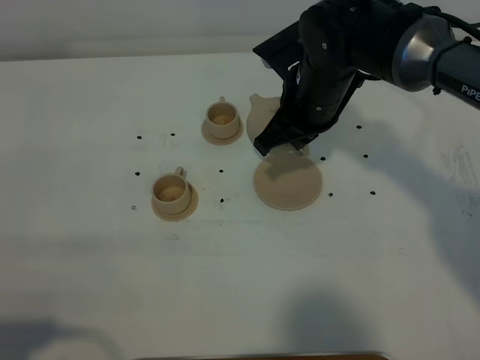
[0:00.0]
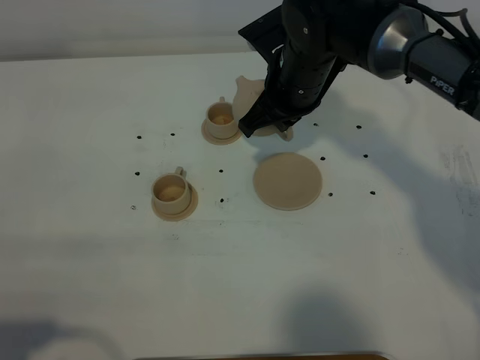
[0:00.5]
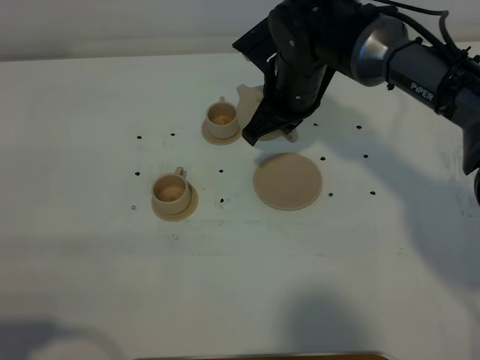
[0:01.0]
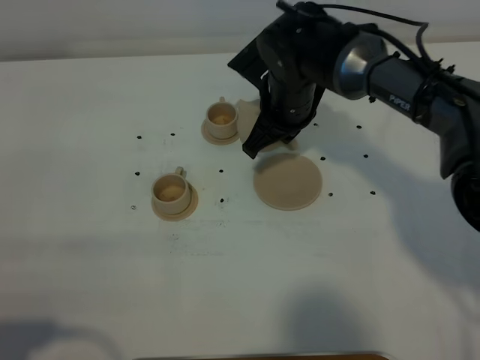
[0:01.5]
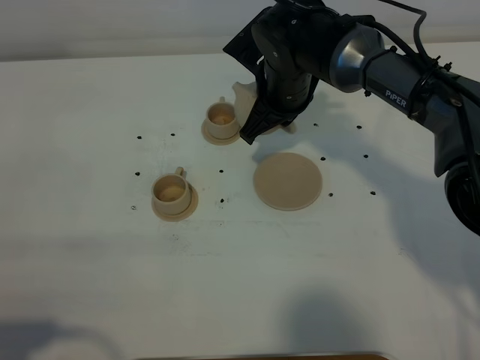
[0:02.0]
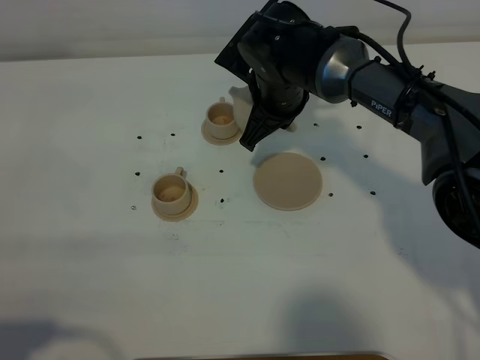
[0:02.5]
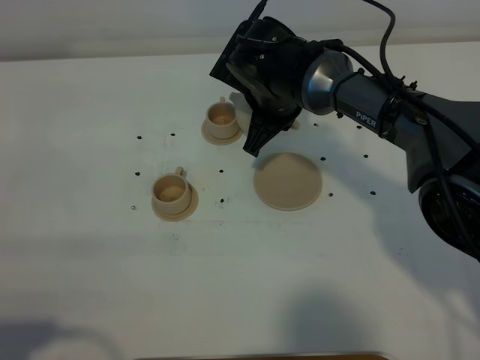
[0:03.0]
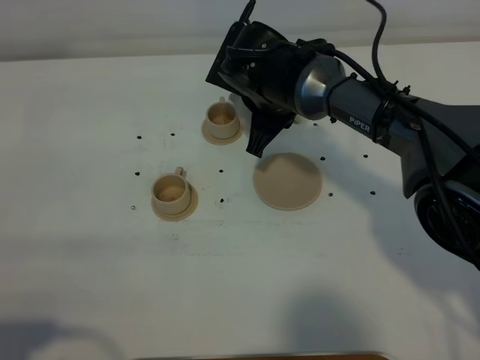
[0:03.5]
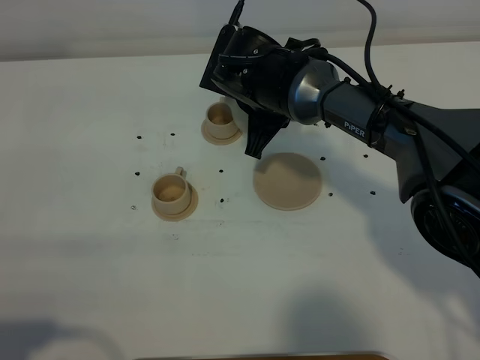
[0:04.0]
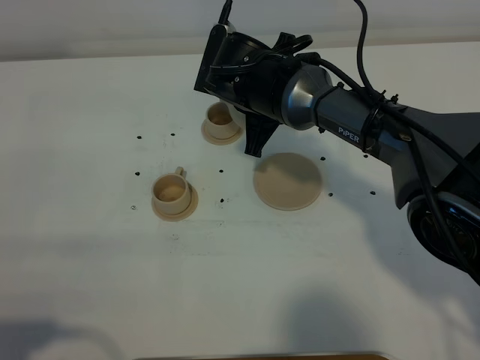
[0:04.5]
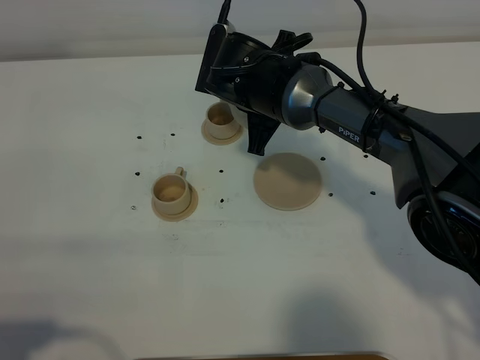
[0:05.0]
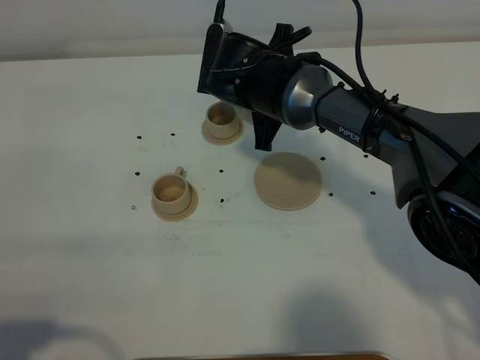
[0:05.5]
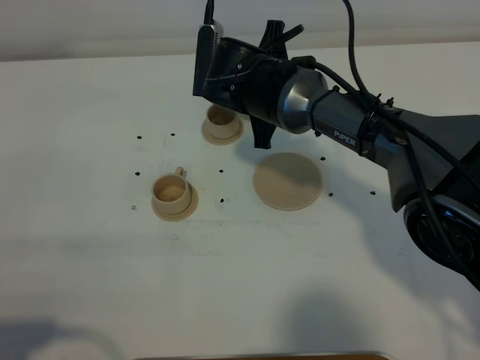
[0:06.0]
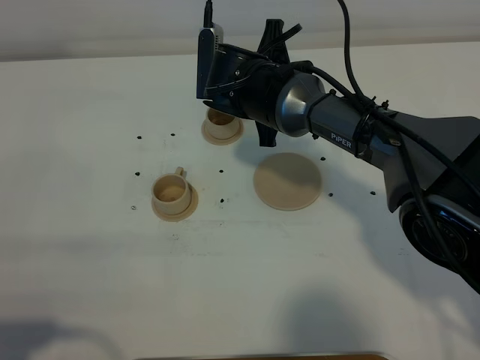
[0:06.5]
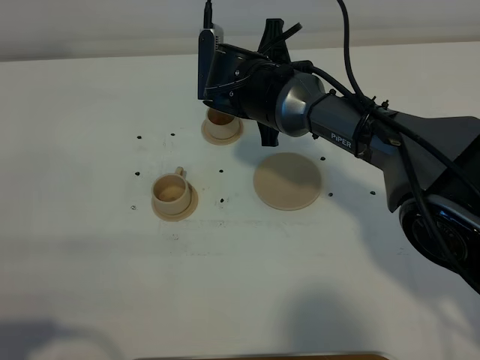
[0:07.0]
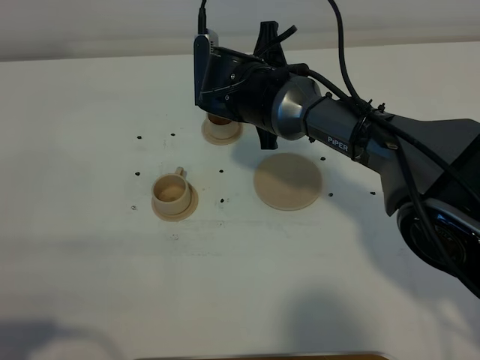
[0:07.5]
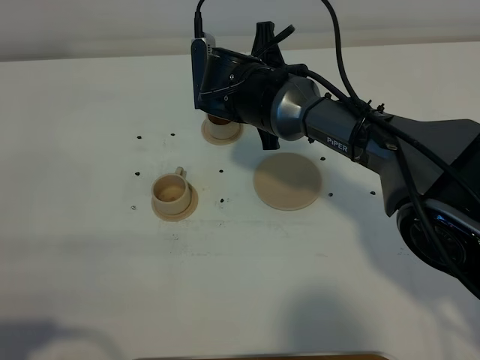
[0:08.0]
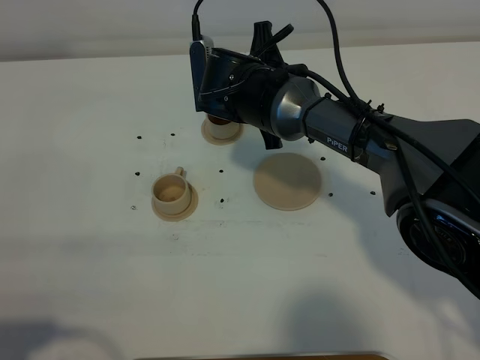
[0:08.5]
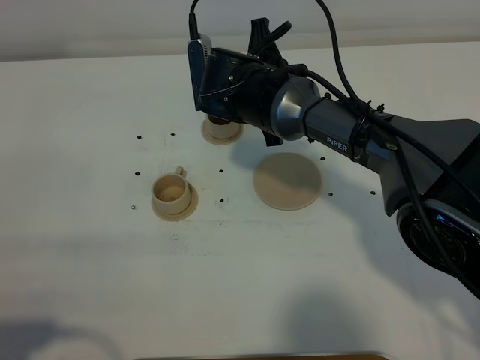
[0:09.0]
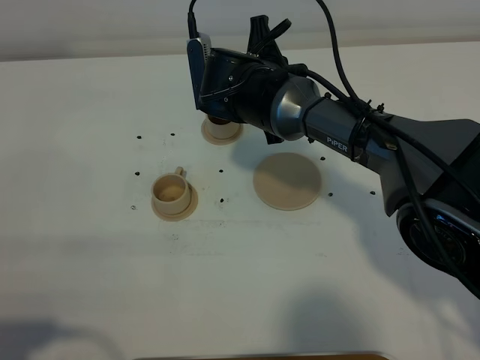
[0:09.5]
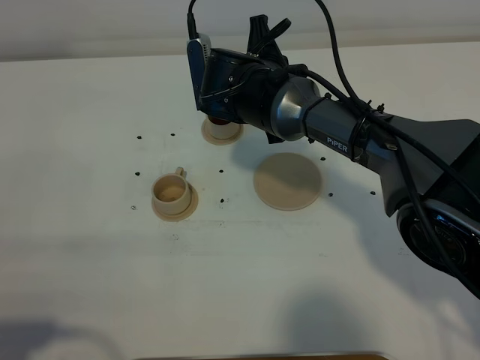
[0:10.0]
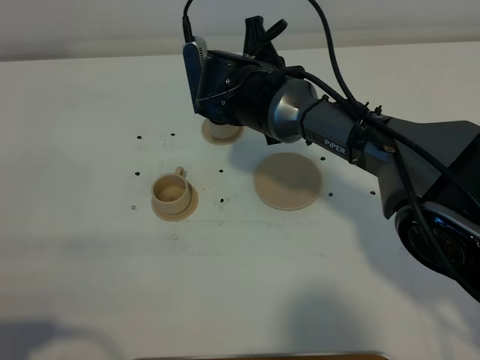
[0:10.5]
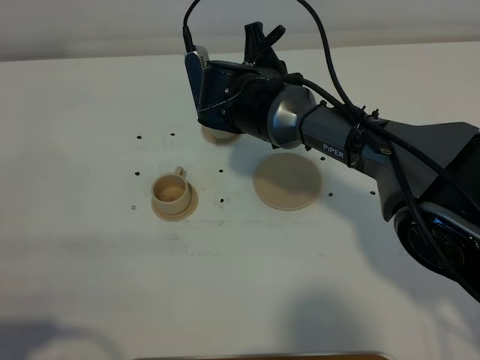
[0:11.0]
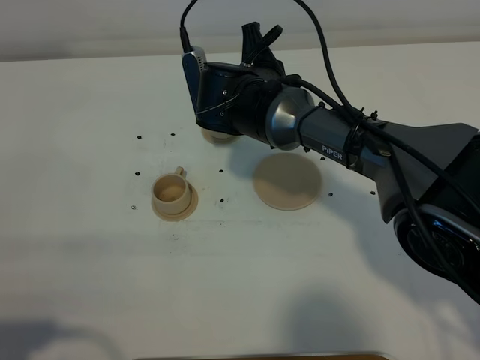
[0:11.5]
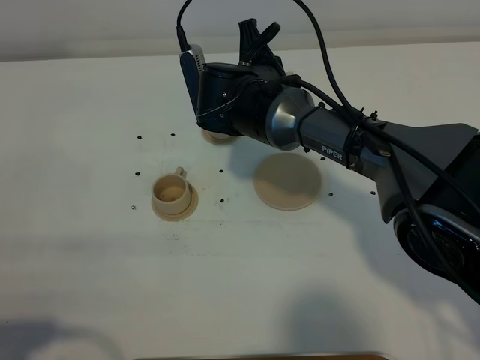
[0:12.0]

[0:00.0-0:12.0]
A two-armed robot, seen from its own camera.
Task of the whole recording: grasp the brown teapot and pour the tea into the two brown teacups one by one, put the brown teapot back in its original place.
0:00.0 to 0:02.0: The right gripper moves about 5 cm.
0:04.0 to 0:06.0: The grippers stay close to where they were, moving slightly.
0:06.0 to 0:10.0: The grippers stay close to where they were, moving slightly.
0:10.0 to 0:12.0: The grippers make only small movements.

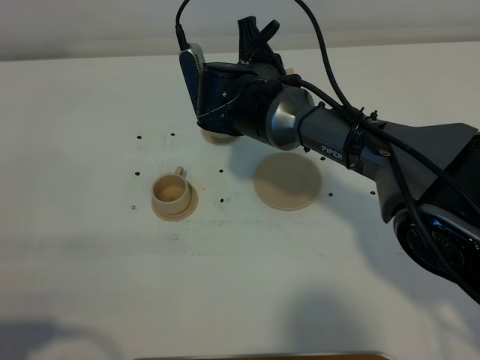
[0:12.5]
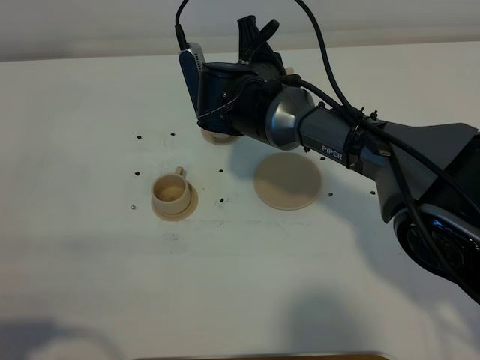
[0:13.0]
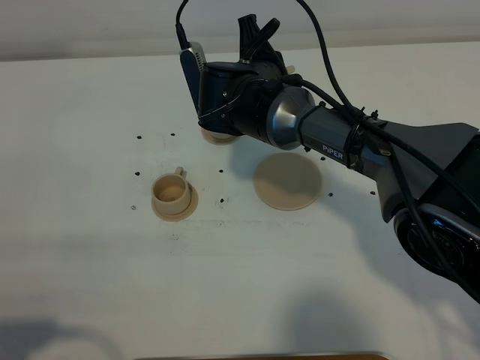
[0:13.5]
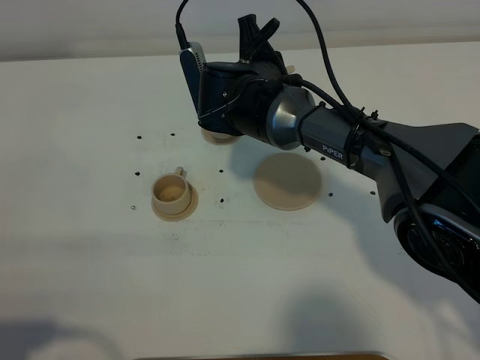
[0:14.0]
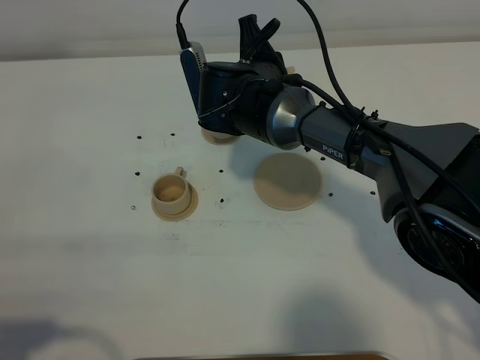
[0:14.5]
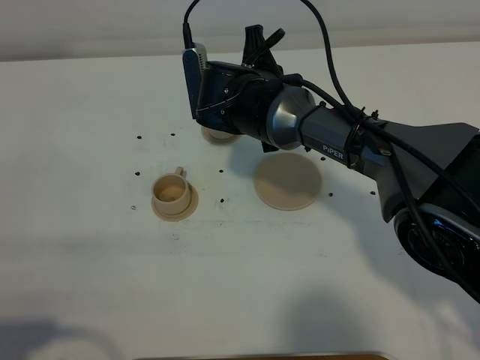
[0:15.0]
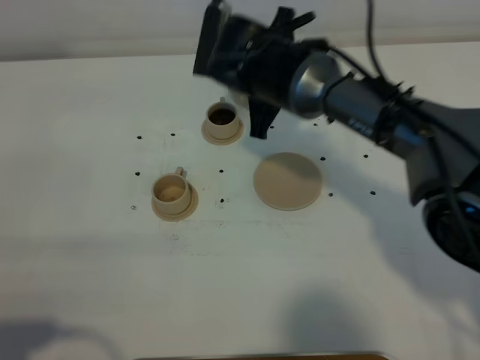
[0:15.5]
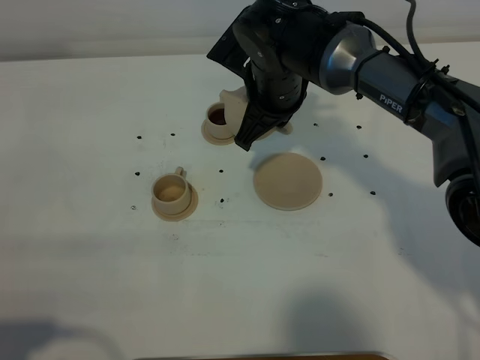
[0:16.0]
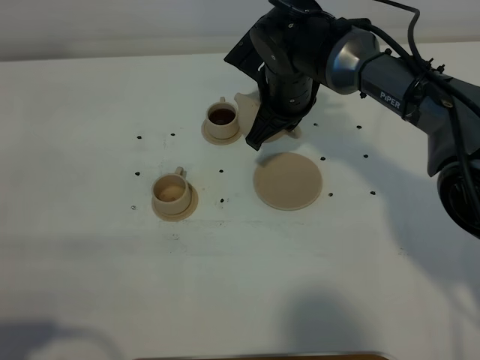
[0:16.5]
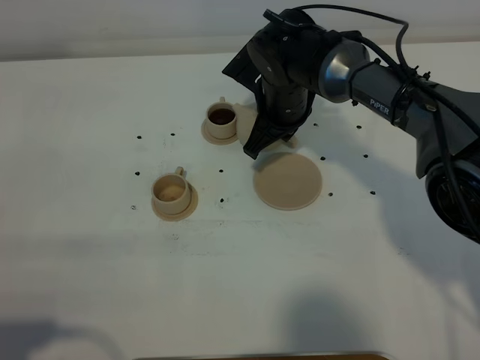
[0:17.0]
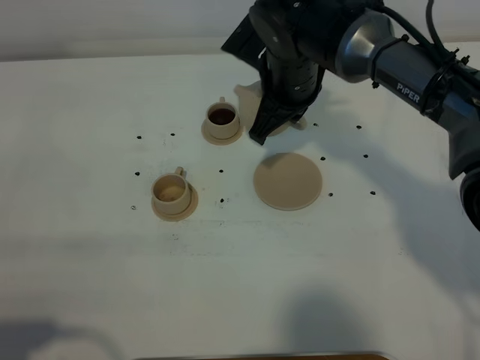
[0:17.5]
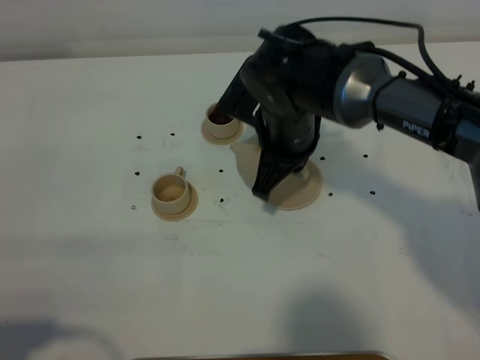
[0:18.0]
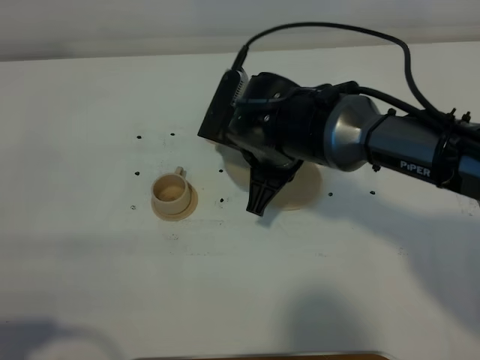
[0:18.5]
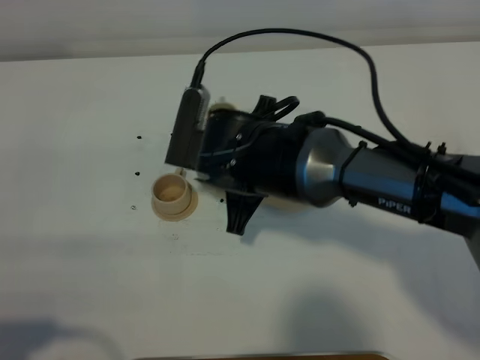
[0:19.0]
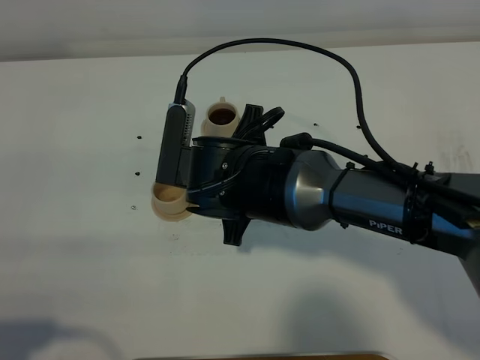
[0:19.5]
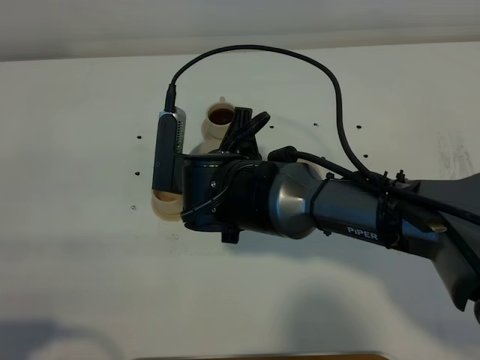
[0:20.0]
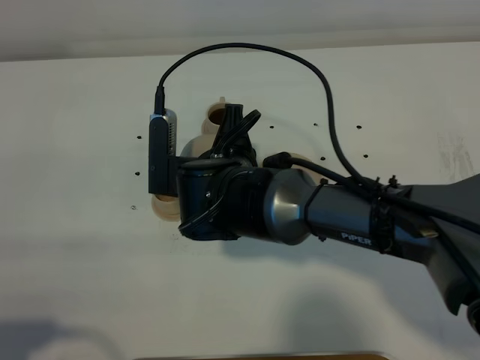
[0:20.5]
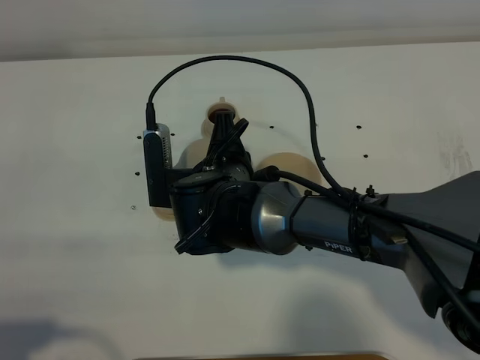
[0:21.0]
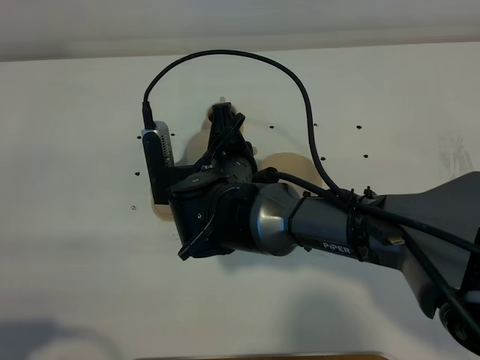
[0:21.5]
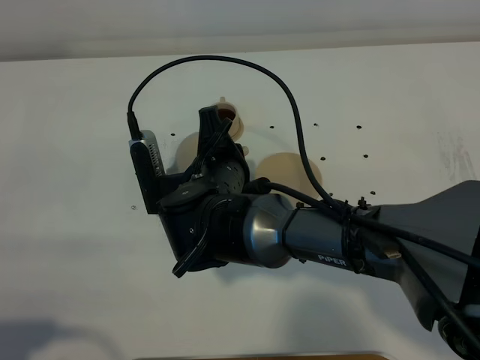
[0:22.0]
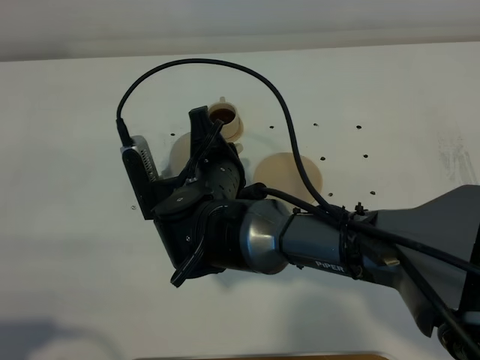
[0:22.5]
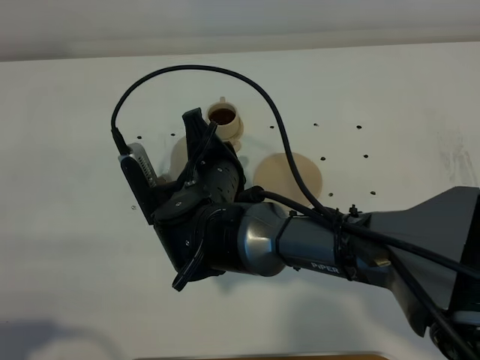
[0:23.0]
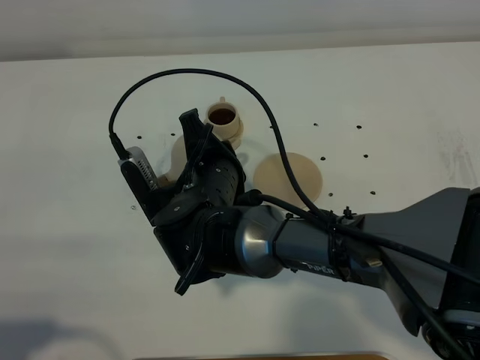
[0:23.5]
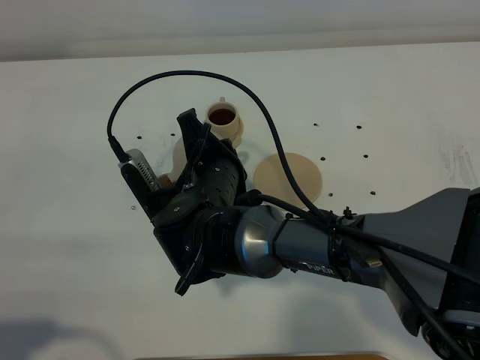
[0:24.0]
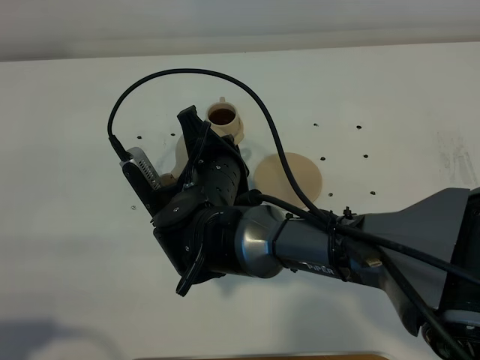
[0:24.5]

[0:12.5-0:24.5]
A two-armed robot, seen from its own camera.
Task of the whole recording: grasp the brown teapot and pour the tea into the two brown teacups one by one, put the brown teapot back in its original place.
Step, 0:12.5 to 0:15.0: Pour tea into the teacup with the right gripper.
0:12.5 to 0:14.5: The two grippers keep their place.
0:16.5 to 0:18.5: The right gripper travels backward by some 10 cm.
0:18.5 to 0:20.5: The right gripper shifts about 5 cm to the left.
0:22.5 to 0:24.5: The grippers make only small movements.

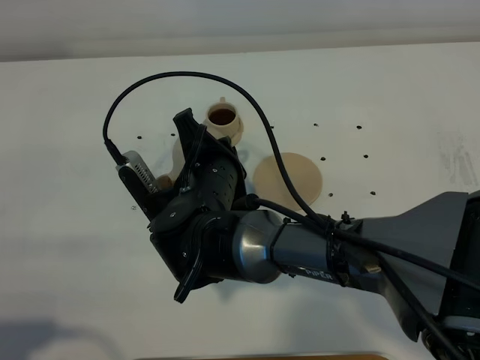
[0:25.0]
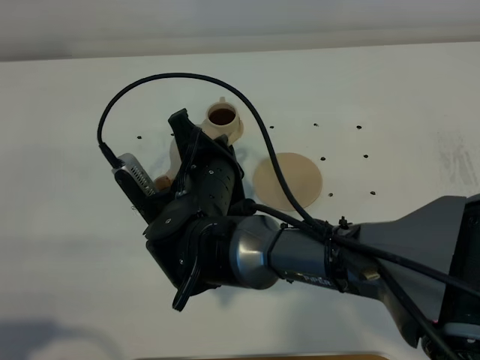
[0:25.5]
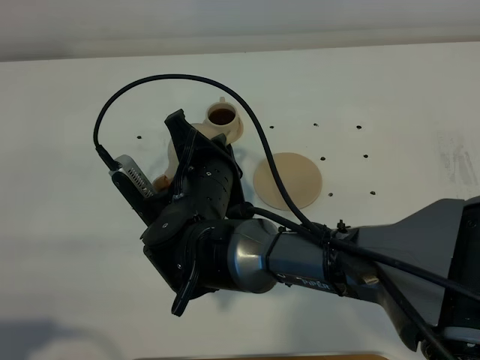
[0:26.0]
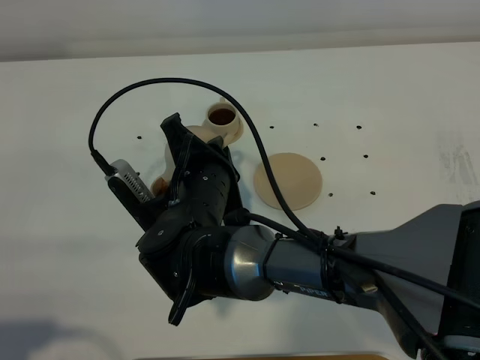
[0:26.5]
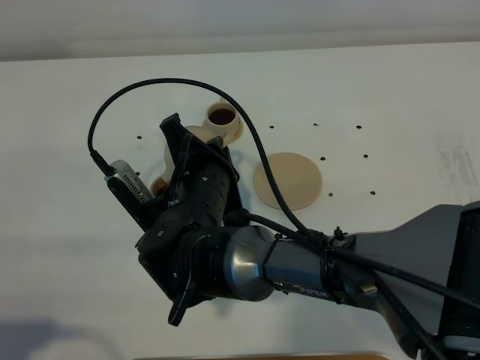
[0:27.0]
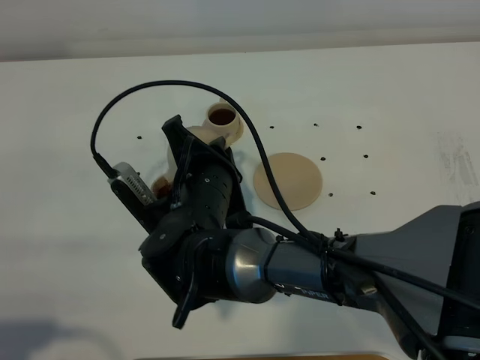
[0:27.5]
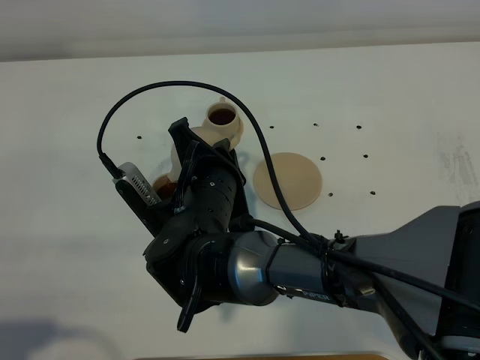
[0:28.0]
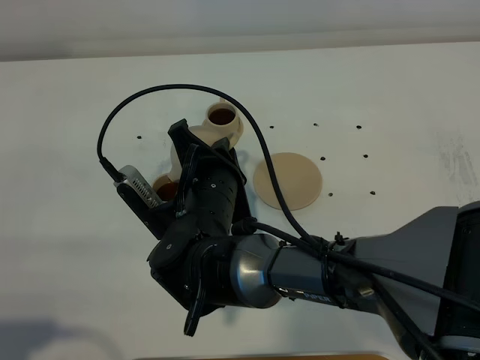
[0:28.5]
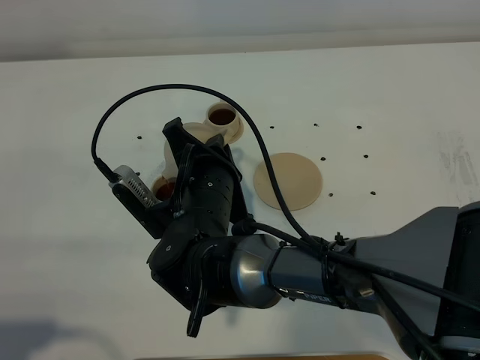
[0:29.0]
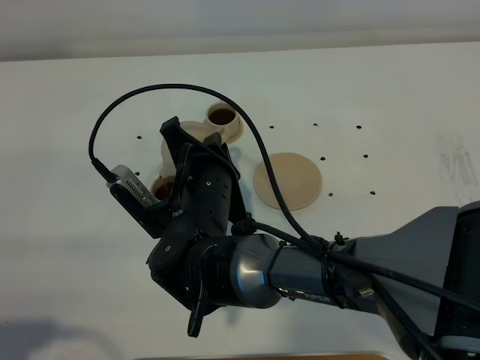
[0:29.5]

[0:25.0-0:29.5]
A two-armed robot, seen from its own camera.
Task of the whole recording: grasp the brown teapot and pour the tea into the two brown teacups one by one, put the brown teapot back in its original place.
0:25.0 to 0:29.5: The grippers stay close to where they were, moving slightly.
